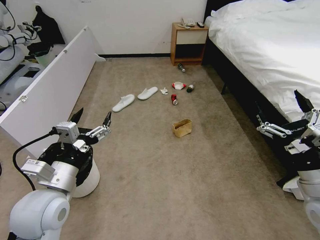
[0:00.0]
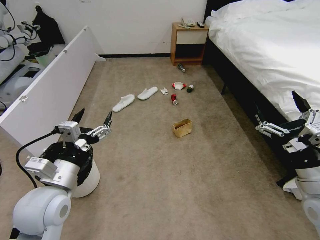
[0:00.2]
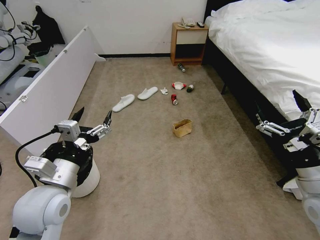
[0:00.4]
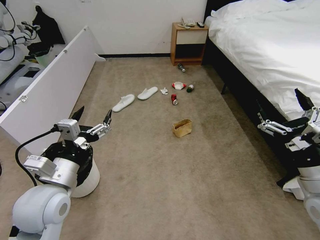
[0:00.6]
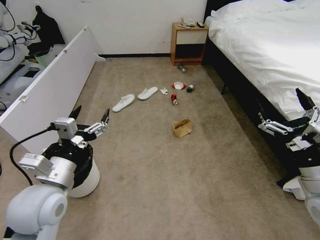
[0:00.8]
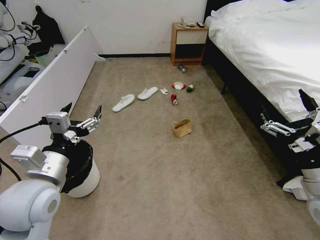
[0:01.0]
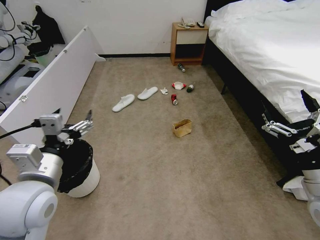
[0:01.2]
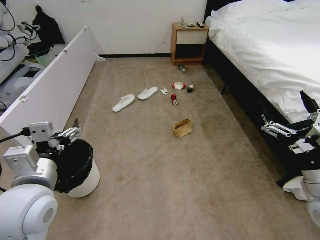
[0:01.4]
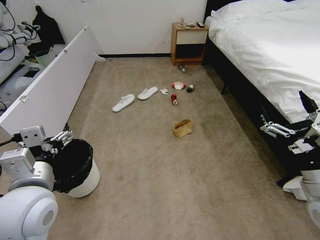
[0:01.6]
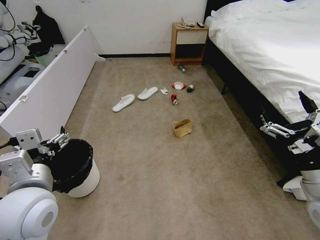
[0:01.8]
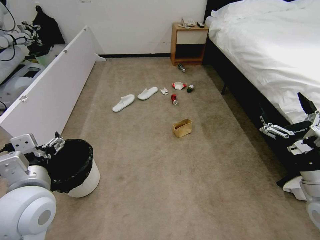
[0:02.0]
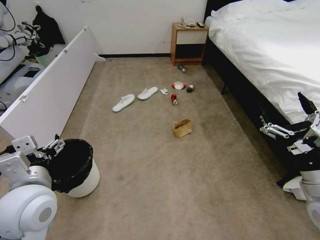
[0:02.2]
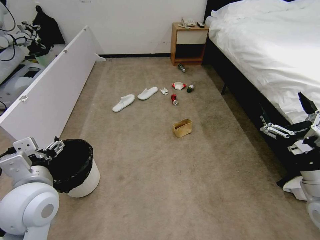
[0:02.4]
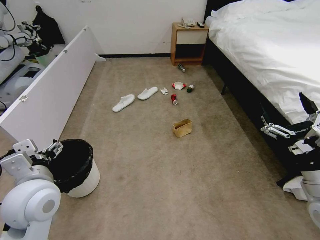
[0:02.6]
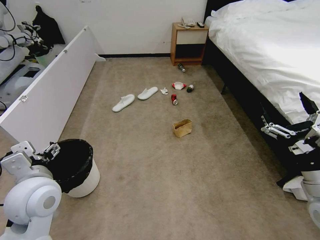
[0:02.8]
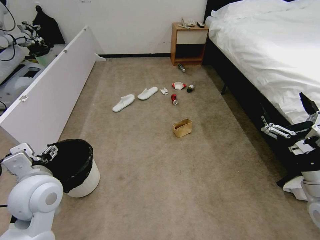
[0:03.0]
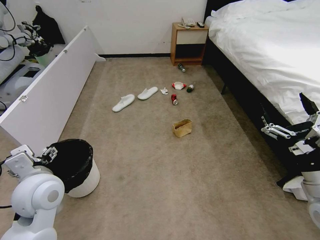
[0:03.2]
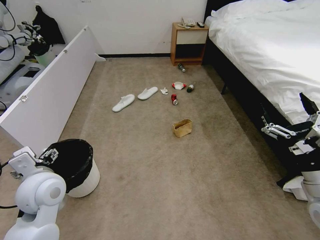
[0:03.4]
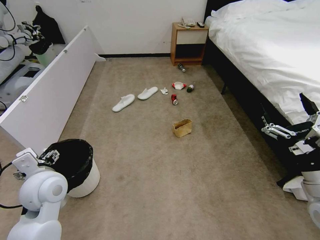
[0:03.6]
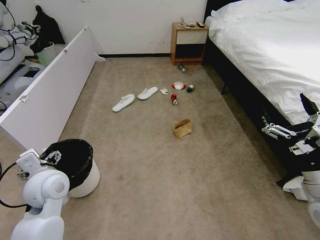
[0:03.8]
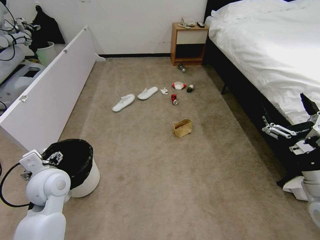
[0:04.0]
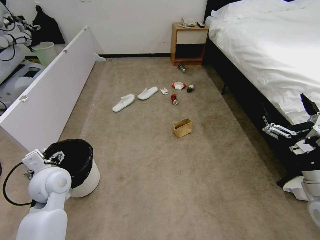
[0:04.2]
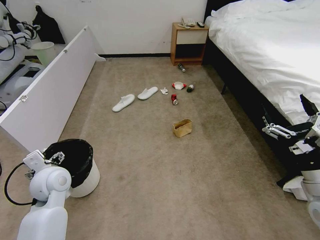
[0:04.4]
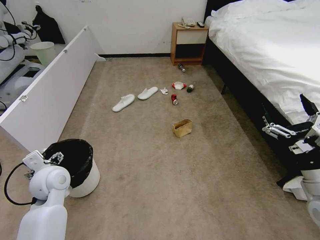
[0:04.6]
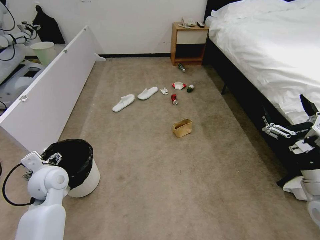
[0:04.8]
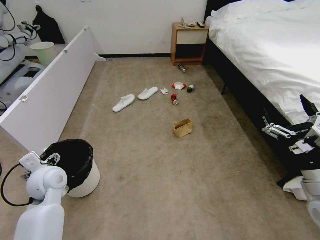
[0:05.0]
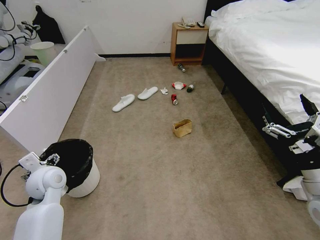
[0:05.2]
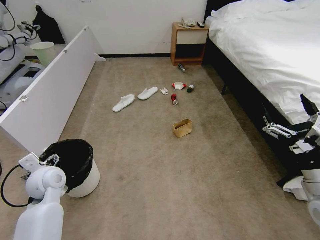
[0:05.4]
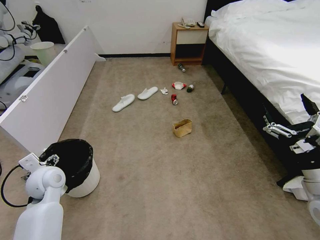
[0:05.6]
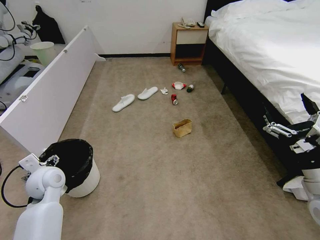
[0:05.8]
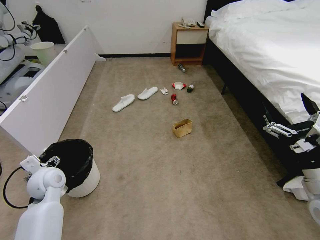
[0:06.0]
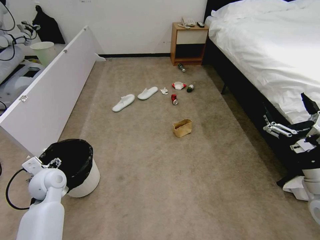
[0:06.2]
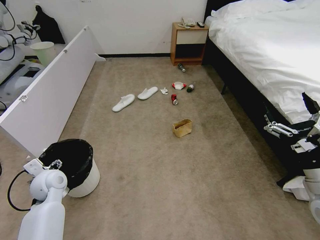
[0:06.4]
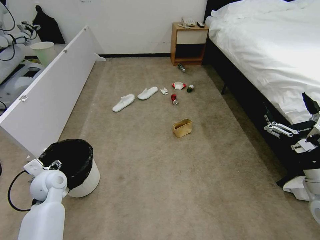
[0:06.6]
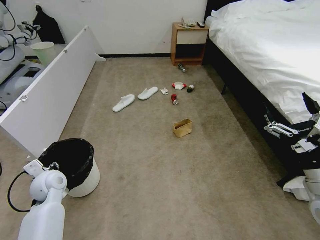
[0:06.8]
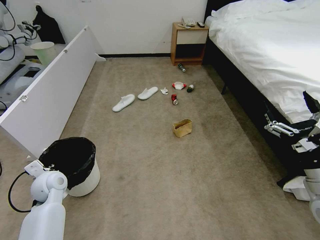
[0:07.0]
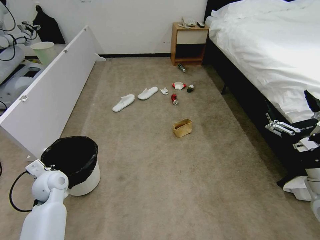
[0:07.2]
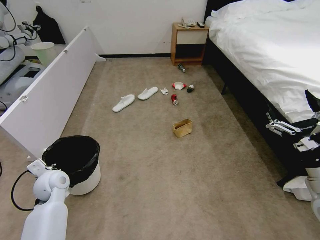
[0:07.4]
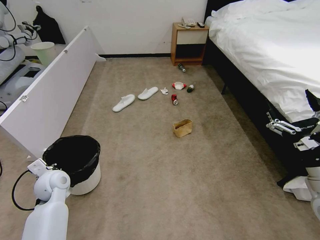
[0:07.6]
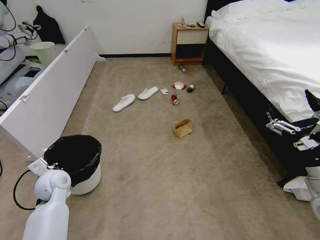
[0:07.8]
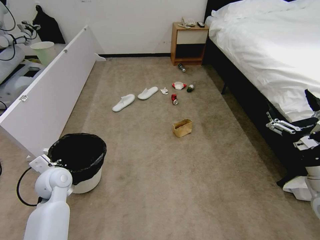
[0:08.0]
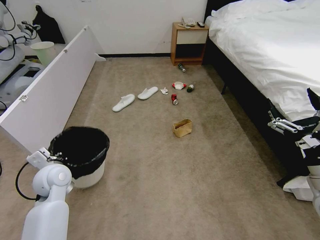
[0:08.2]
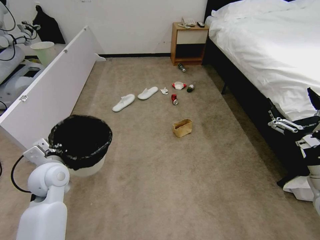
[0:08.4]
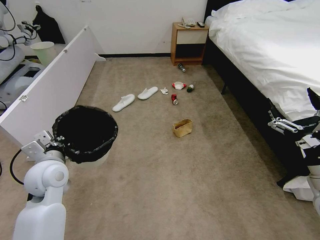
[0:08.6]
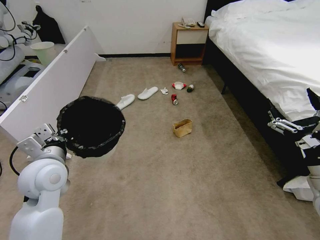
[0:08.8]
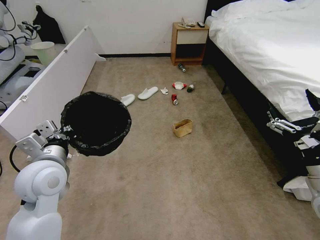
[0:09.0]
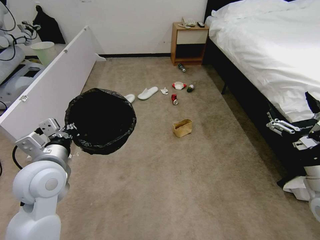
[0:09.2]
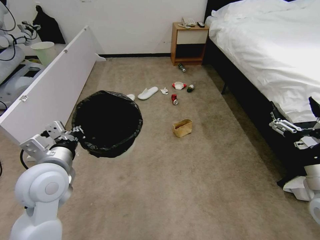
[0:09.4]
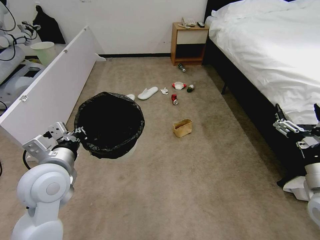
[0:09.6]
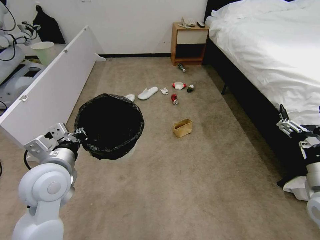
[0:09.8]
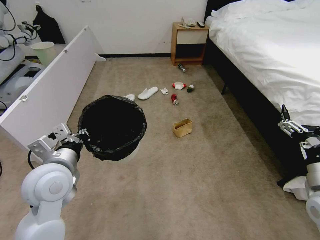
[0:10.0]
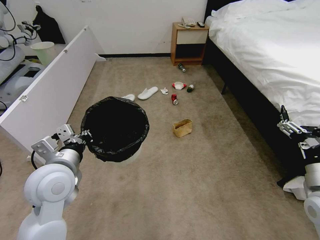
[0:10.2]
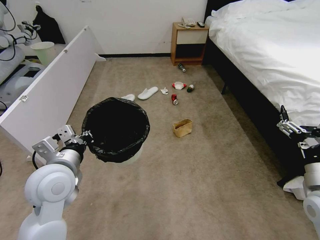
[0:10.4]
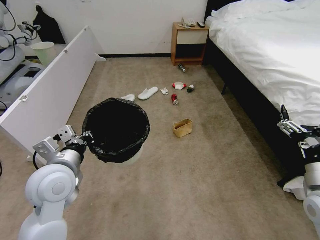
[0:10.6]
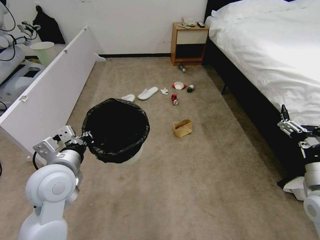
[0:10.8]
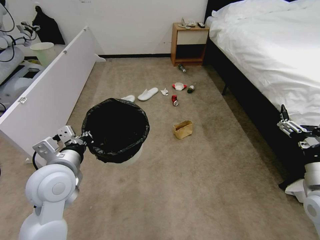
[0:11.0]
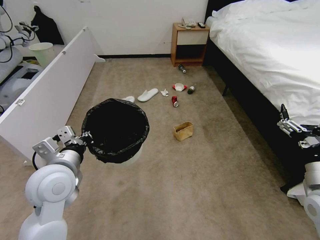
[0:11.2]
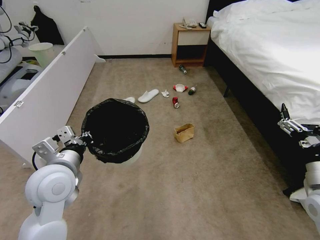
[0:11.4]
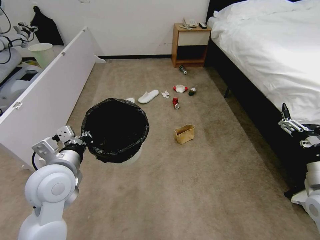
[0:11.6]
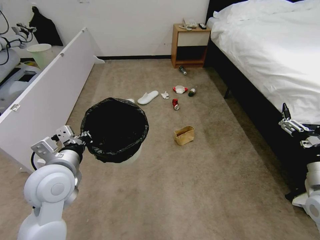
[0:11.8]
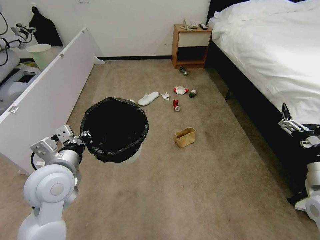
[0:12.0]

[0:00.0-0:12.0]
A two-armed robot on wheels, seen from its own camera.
Task of the whole recording: Pick up the trash bin, then pick up the garbage from the floor and place it into the trash bin.
0:01.6 to 0:03.0: The left gripper ends up about 5 cm from where it was.
0:03.0 to 0:04.4: The left gripper moves downward and forward, roughly 10 cm.
0:04.4 to 0:06.0: The left gripper shifts by approximately 5 cm.
0:06.0 to 0:07.6: The left gripper closes.
0:07.6 to 0:09.0: The left gripper heads upward and to the right, covering approximately 15 cm.
0:10.4 to 0:12.0: Both grippers stay put.

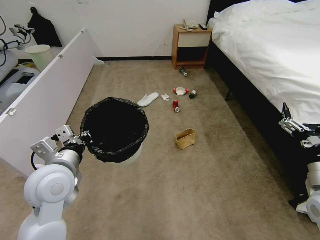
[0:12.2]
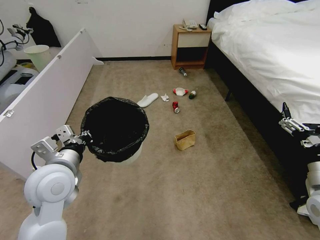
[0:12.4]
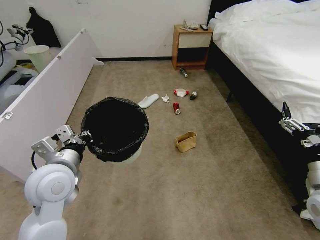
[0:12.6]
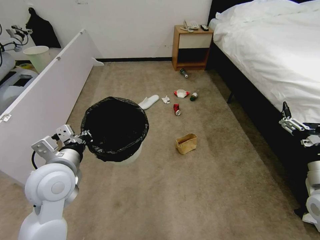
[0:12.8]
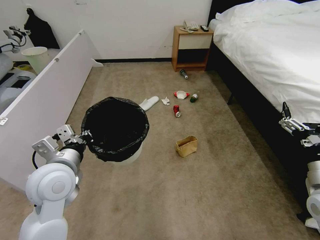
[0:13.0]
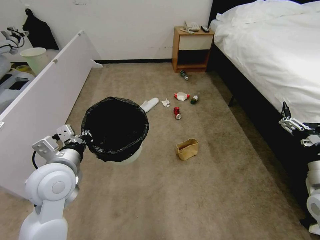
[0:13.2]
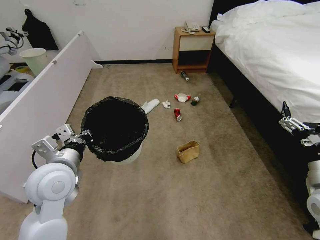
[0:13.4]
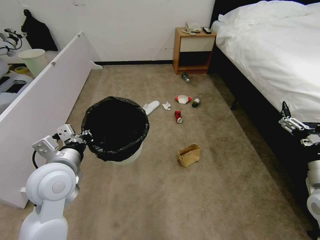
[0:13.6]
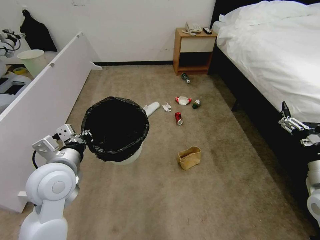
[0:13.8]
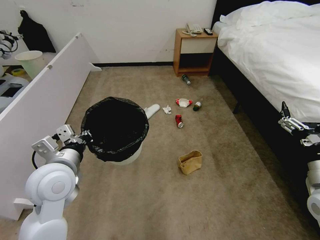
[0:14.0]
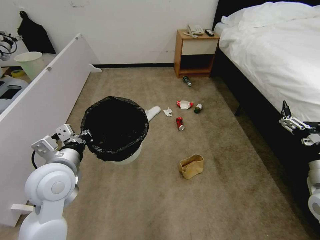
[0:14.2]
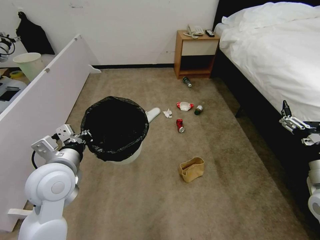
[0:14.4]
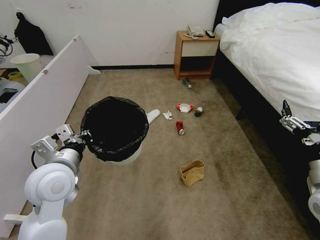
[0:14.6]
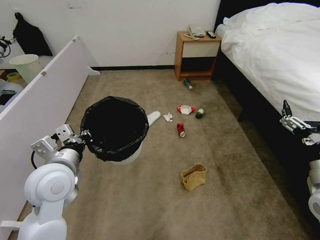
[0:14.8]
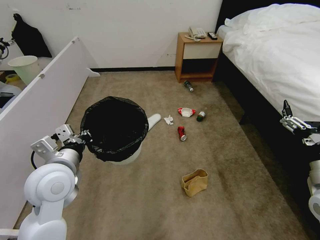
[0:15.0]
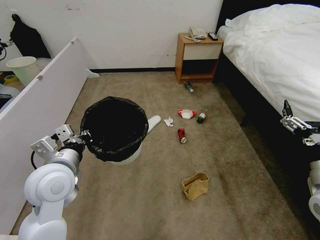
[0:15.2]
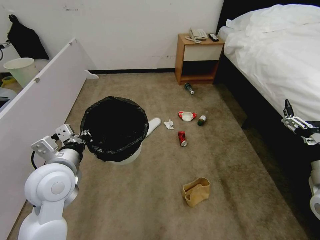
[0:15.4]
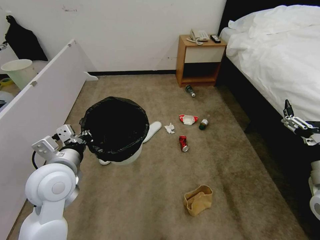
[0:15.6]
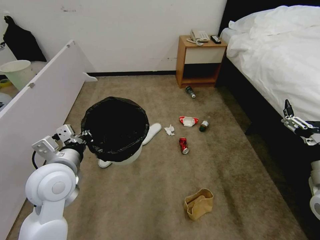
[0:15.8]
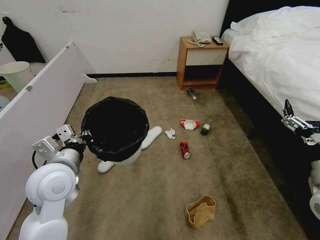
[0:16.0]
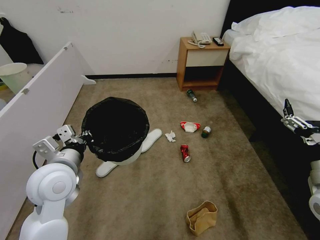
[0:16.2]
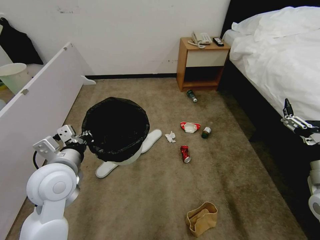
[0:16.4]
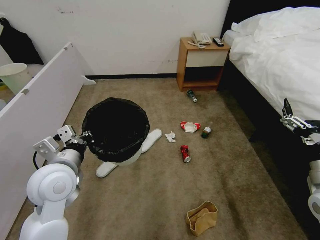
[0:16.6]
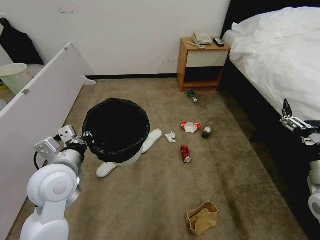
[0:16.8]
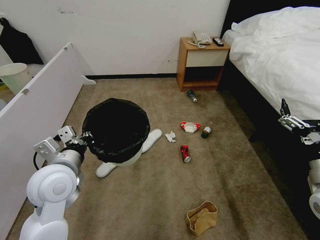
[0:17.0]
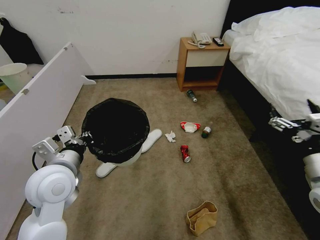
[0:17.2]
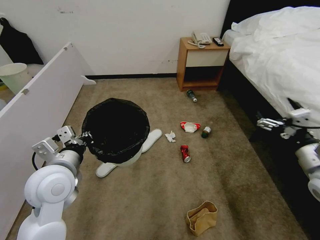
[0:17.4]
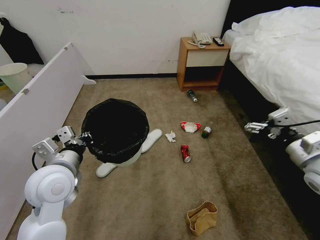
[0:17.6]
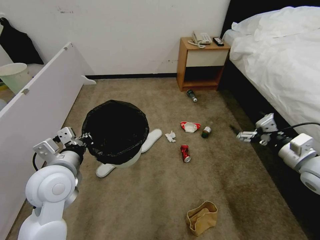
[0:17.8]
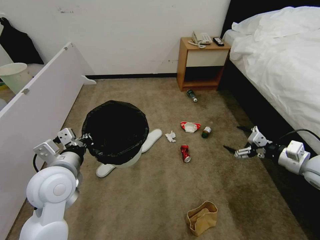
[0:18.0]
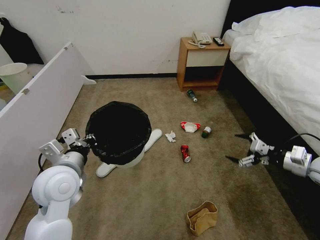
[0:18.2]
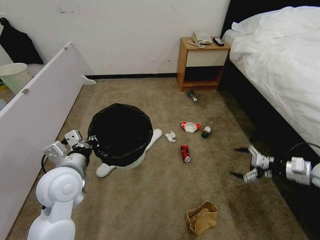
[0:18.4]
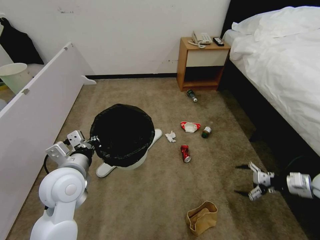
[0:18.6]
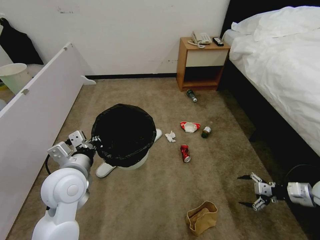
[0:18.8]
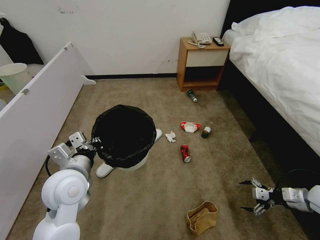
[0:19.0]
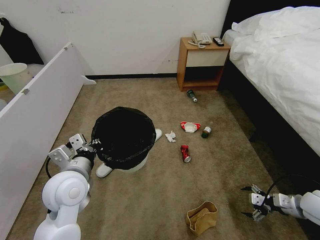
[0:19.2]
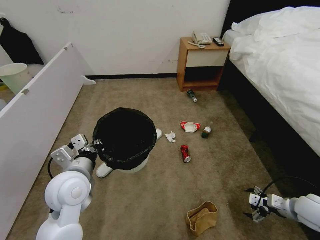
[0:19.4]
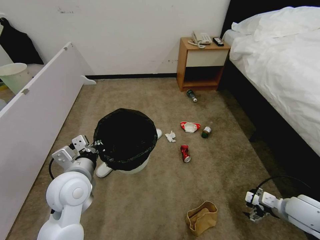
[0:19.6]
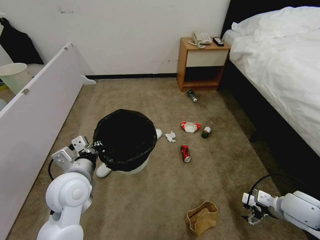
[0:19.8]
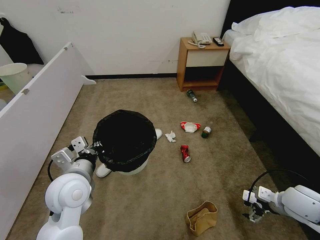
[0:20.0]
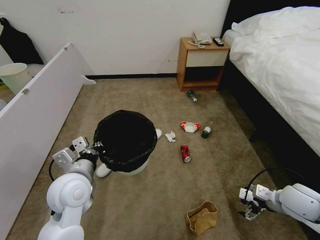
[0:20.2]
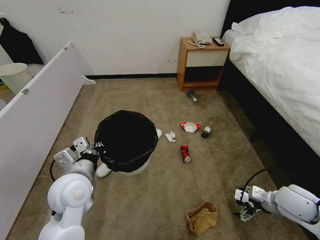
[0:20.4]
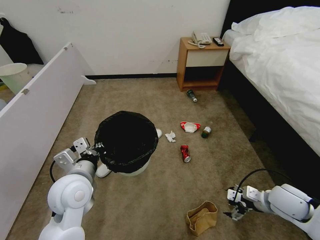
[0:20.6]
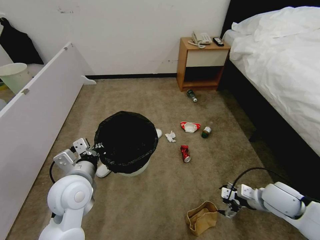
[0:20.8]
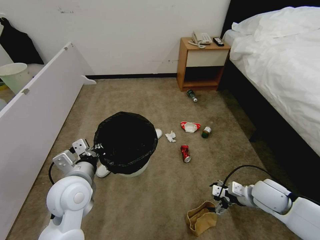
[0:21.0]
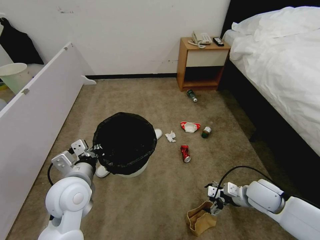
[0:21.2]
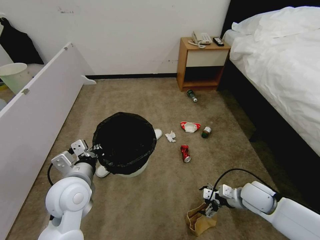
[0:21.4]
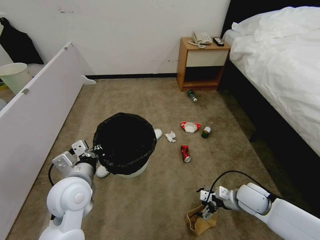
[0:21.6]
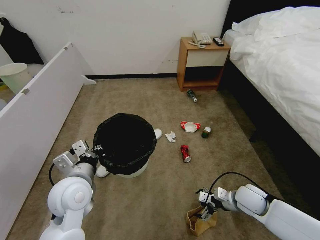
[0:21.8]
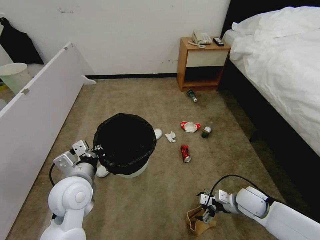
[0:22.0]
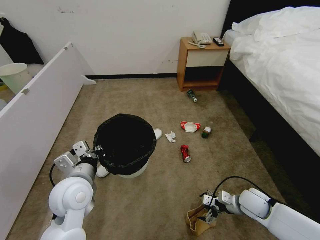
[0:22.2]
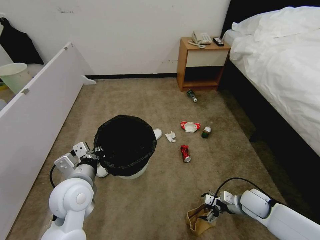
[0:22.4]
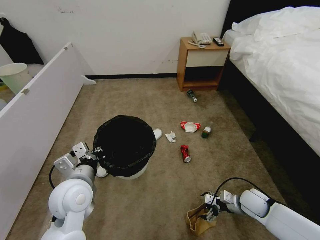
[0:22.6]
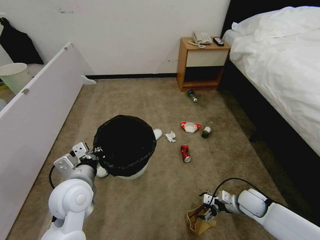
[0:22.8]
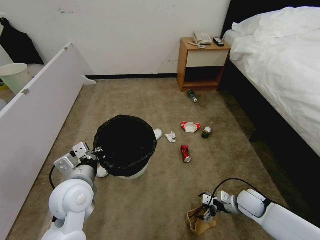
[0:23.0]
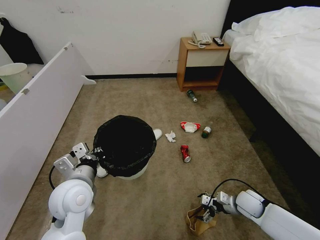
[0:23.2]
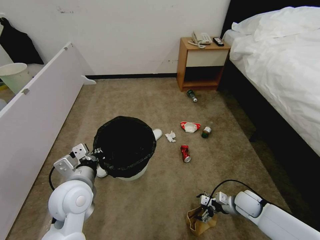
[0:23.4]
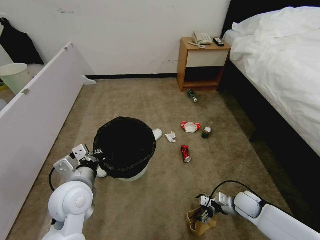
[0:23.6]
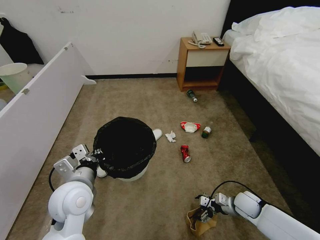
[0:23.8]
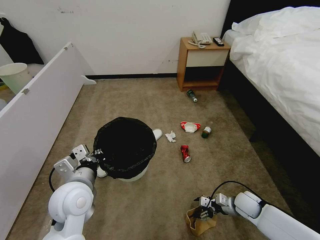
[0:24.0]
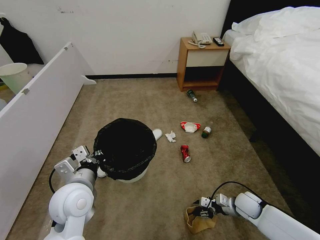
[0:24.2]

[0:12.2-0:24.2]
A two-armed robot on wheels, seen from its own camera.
Task of the whole recording: Pick up the trash bin, then pick up the garbage from the floor and place it into the trash bin.
0:12.2 to 0:16.6: Both grippers stay about where they are.
0:16.6 to 0:18.2: The right gripper shifts about 15 cm forward and to the right.
0:18.2 to 0:19.8: The right gripper travels downward, backward and to the left by about 15 cm.
0:19.8 to 0:21.2: The right gripper is displaced to the left by approximately 10 cm.
0:21.2 to 0:22.6: The right gripper goes roughly 10 cm downward.
0:22.6 to 0:24.2: The right gripper closes its fingers.
